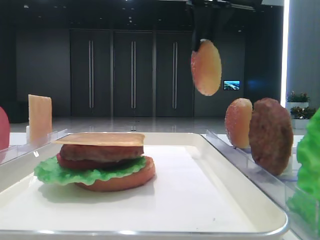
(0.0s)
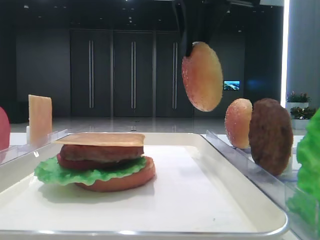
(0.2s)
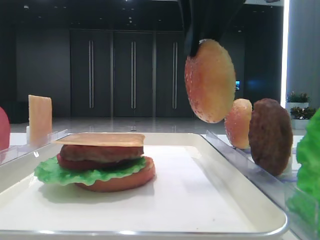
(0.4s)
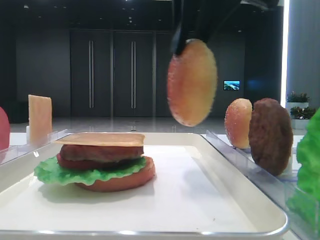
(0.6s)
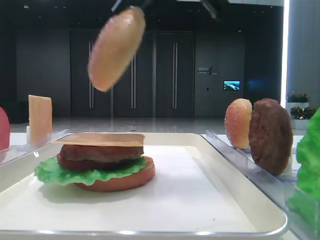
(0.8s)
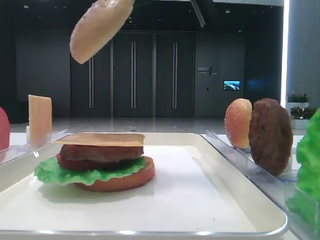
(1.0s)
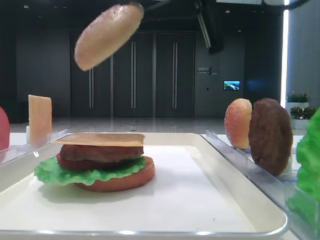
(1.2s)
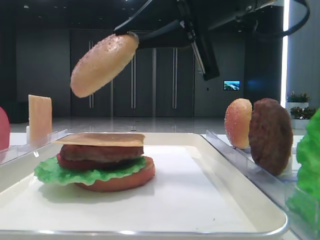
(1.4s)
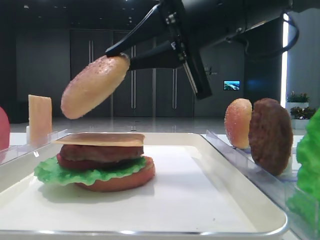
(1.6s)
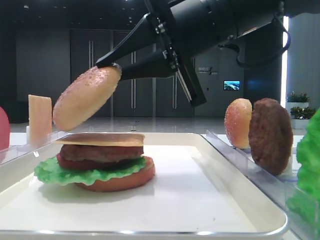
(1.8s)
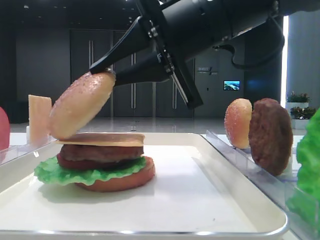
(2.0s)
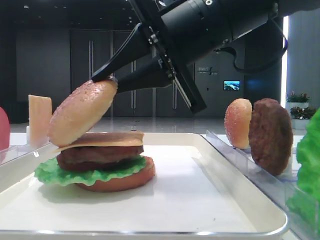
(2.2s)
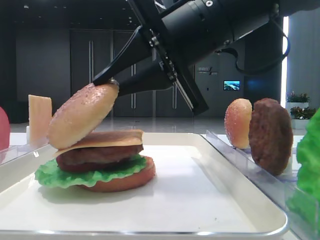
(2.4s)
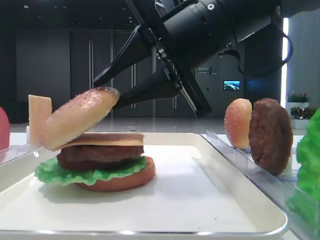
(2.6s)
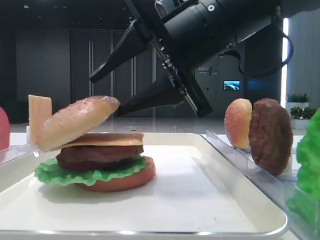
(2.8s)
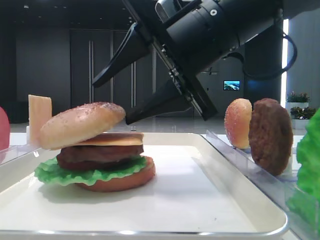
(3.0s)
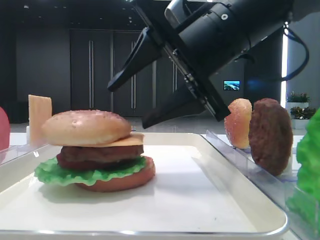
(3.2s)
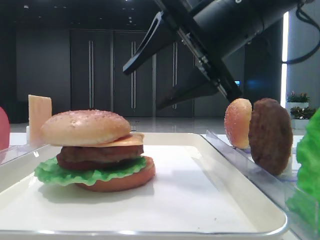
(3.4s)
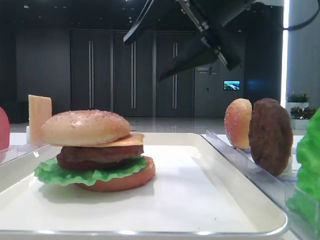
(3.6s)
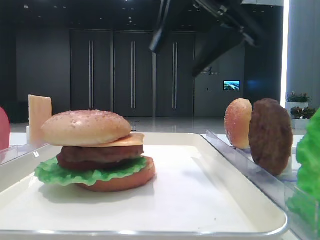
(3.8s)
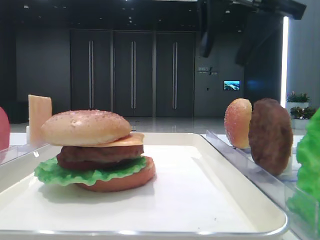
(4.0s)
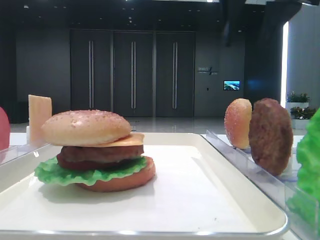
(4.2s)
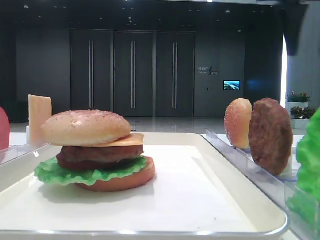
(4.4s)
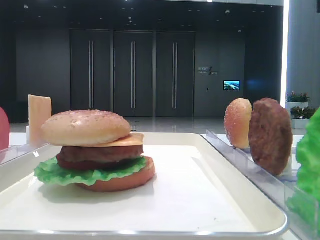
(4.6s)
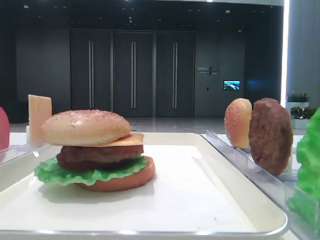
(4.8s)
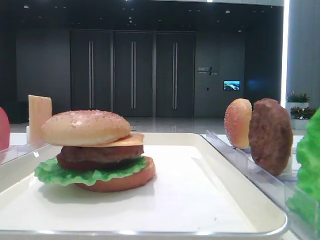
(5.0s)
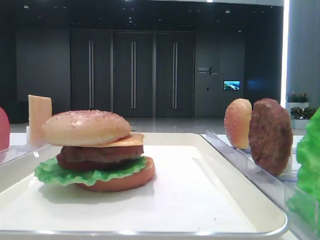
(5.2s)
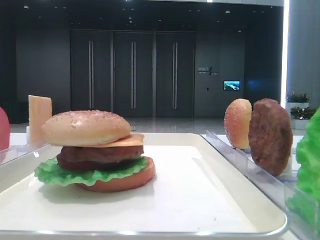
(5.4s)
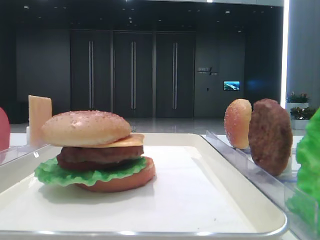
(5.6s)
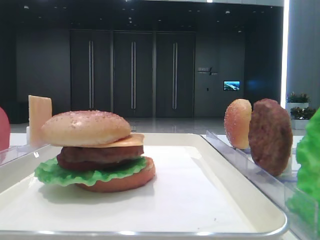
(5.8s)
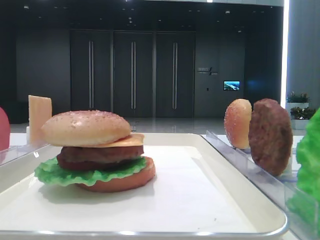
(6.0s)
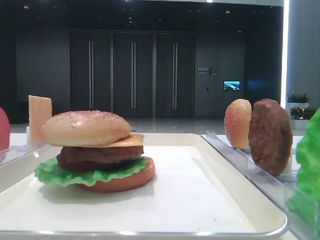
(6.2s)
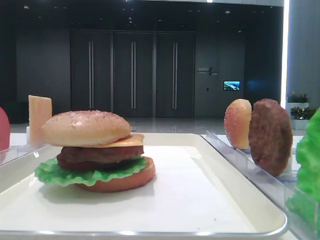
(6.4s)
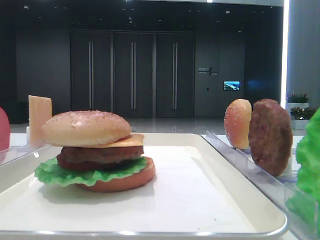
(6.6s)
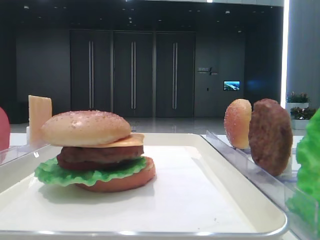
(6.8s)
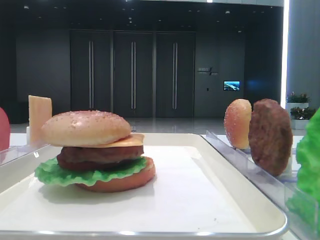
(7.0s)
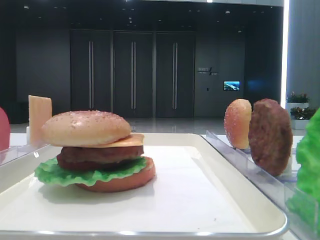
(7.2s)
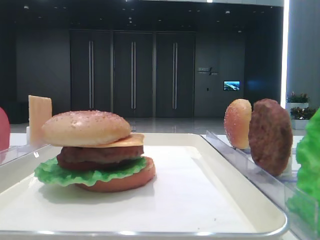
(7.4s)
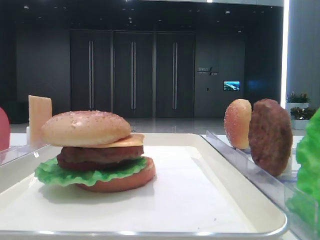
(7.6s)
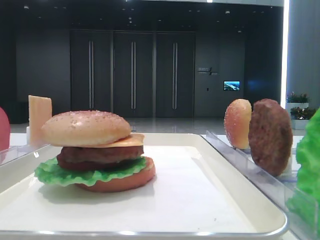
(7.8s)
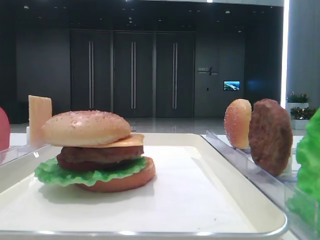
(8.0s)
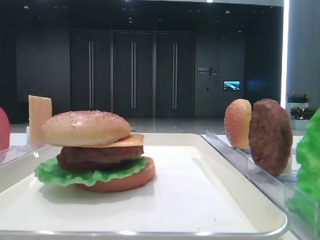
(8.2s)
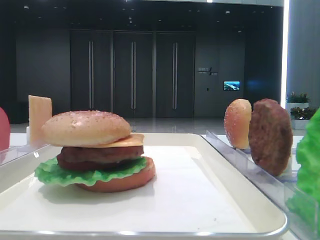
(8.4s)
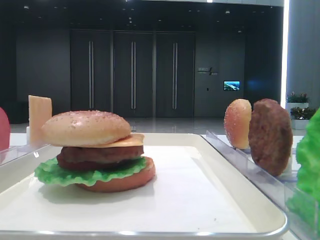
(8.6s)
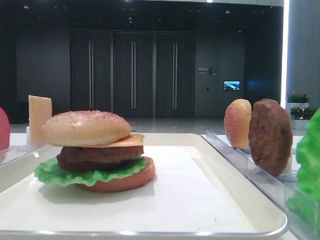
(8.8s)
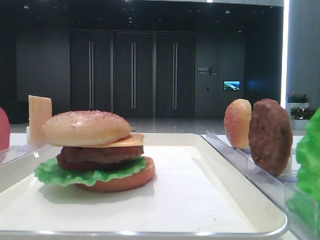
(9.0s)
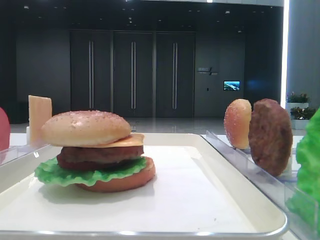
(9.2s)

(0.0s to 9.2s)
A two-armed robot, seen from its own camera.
Step, 0.0s - 3.2s: Place the top bread slice on the cheese with the right hand.
0.0s - 1.6s: The right gripper travels downward and backward by about 15 cm.
1.6s - 3.0s: The right gripper opens up.
3.0s - 4.6s: The right gripper is displaced to the right and upward by roughly 25 cm.
4.6s - 6.2s: The right gripper shifts about 35 cm backward.
6.2s - 9.2s: The two grippers keep their place.

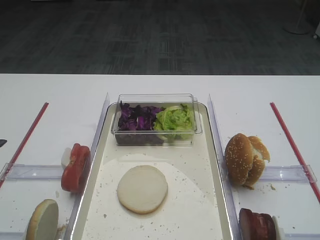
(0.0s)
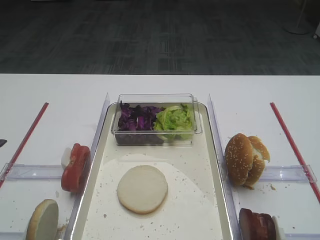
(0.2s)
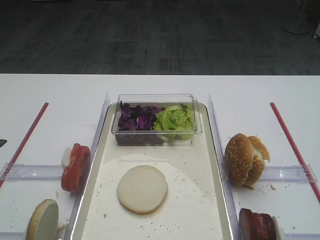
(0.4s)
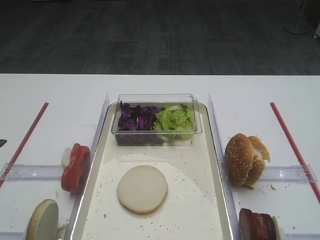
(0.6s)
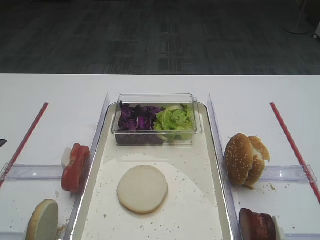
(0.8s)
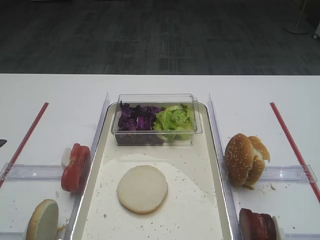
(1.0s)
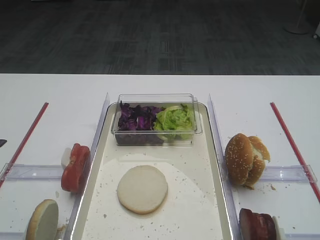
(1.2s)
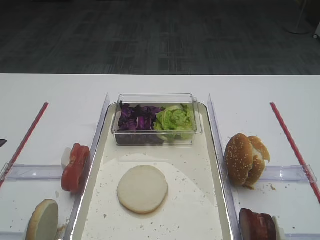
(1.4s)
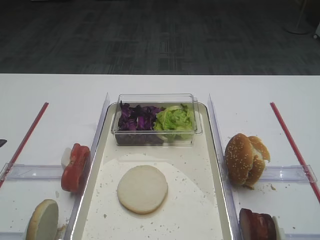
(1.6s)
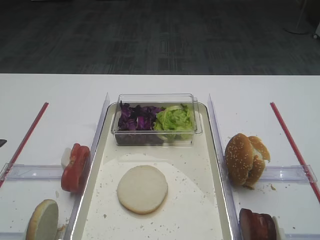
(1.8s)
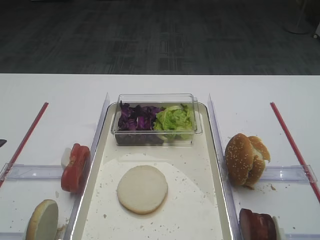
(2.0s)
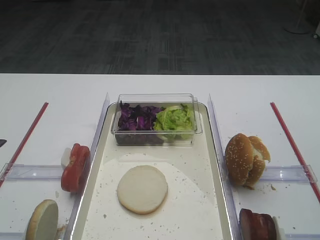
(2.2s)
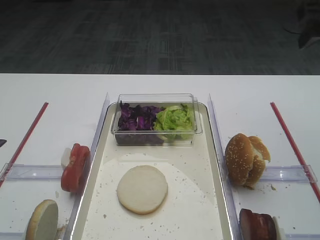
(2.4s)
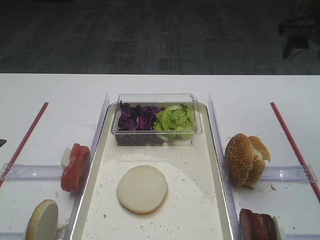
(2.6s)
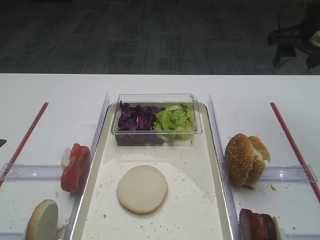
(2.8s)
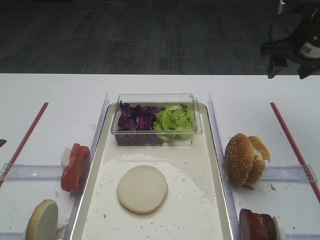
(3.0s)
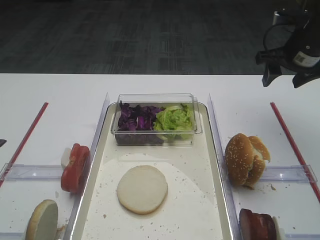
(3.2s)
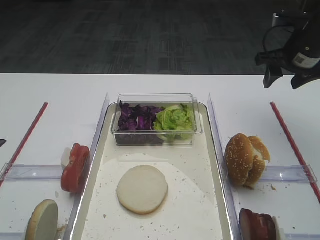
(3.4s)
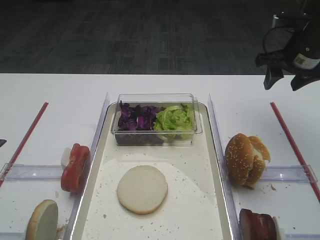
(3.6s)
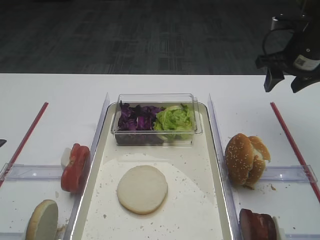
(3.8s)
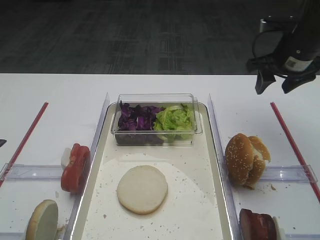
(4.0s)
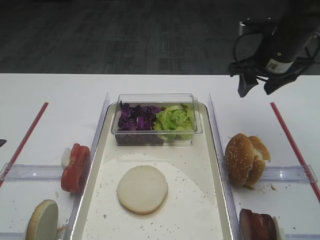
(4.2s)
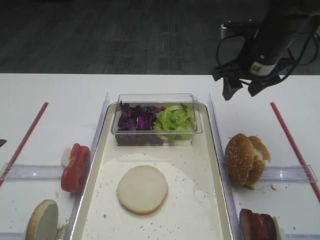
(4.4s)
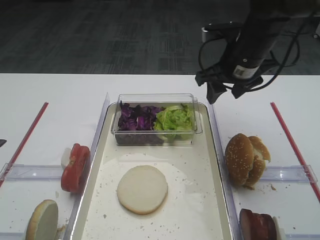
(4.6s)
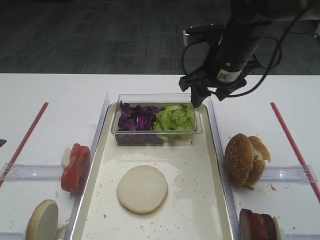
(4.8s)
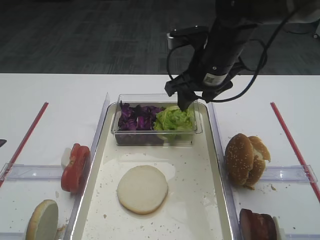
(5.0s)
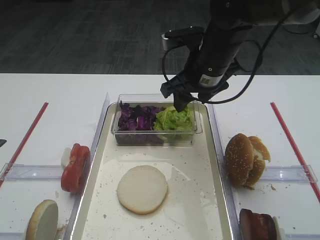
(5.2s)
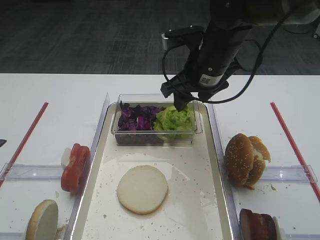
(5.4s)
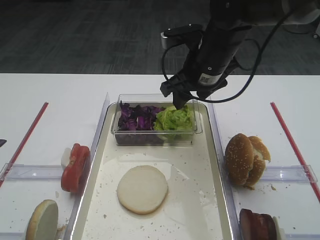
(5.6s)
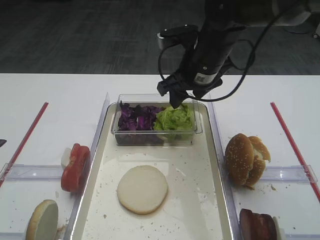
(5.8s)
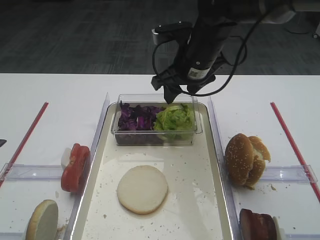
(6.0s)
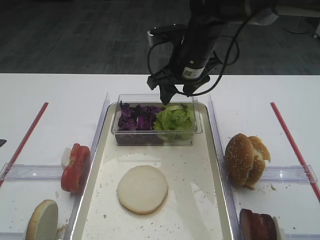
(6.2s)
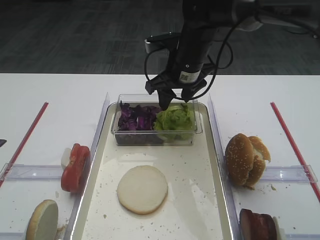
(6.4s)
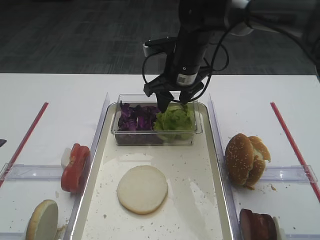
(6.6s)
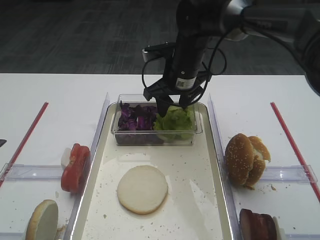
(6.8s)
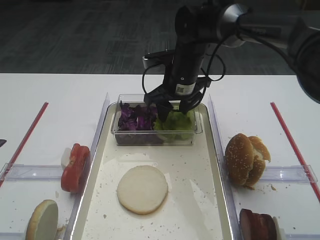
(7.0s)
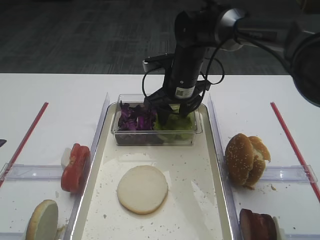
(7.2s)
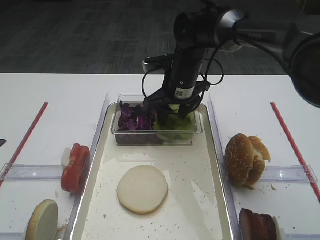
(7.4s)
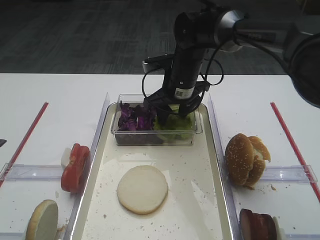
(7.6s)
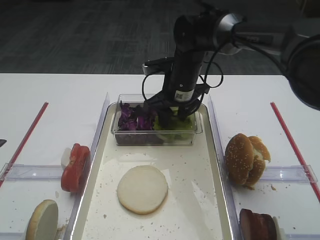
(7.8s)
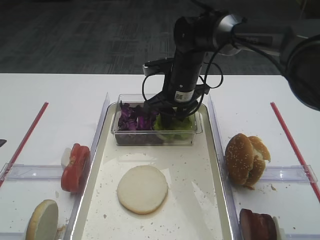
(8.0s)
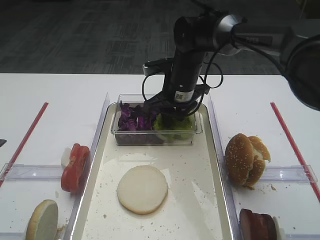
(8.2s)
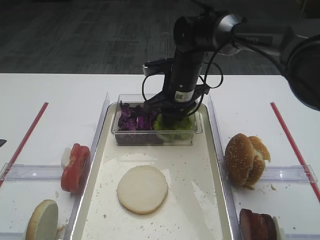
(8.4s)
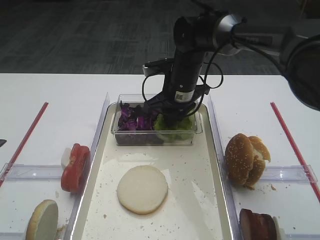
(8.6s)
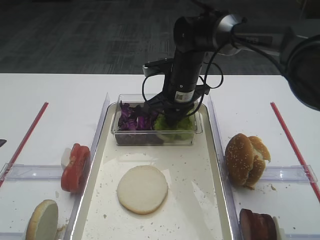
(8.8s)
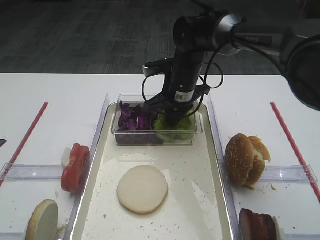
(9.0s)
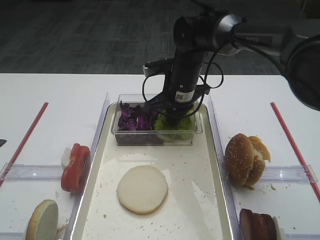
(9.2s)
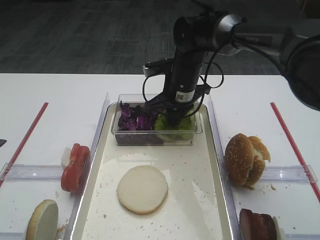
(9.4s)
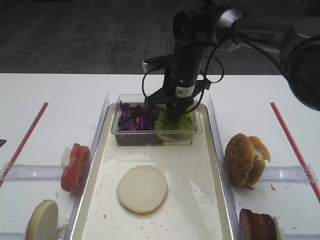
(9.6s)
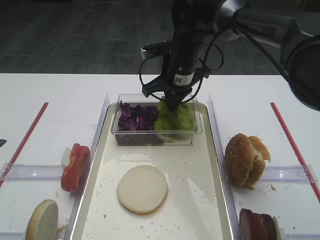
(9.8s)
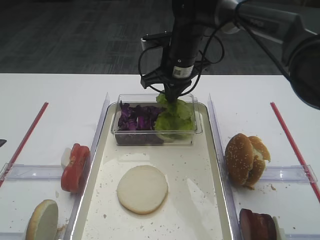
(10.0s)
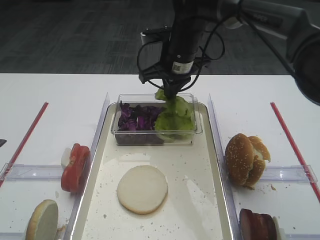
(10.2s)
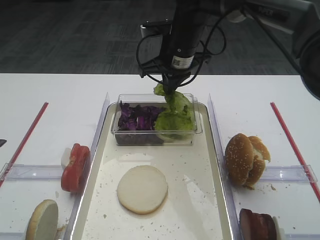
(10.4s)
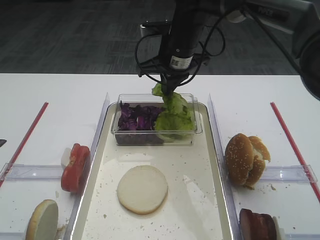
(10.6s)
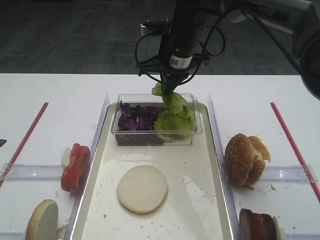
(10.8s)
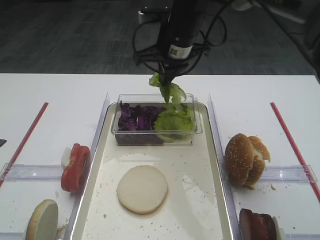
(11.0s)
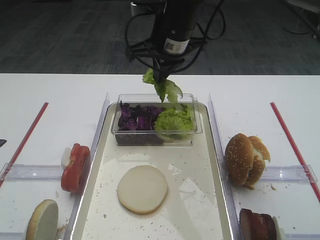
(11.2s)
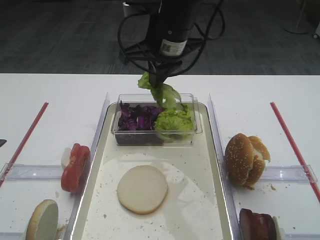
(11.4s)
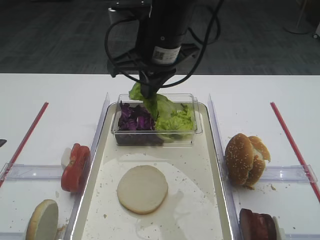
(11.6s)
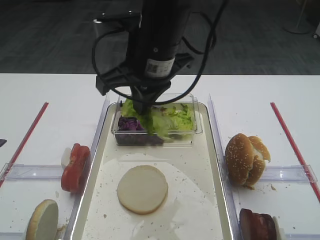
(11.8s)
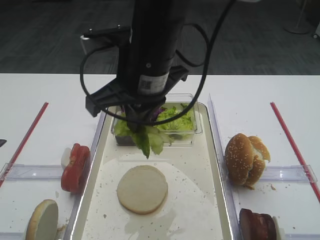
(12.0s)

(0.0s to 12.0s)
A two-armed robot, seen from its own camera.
Step, 0.0s - 10.2s: Pick up the lettuce leaf with the right gripper.
1.6s - 3.0s: The right gripper travels forward by roughly 35 cm.
3.0s - 4.4s: The right gripper heads to the left, covering about 10 cm.
4.4s - 6.0s: The right gripper goes approximately 10 cm to the left.
6.0s - 7.6s: The right gripper goes some 5 cm downward.
7.6s - 9.0s: The right gripper closes its fingers.
9.0s - 10.4s: The right gripper travels upward by about 5 cm.
10.4s - 12.0s: The right gripper shifts some 15 cm backward.

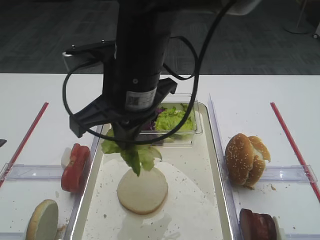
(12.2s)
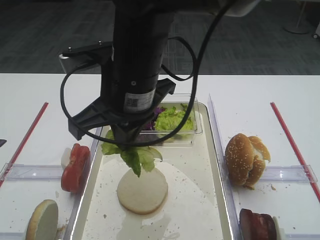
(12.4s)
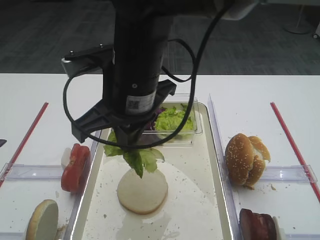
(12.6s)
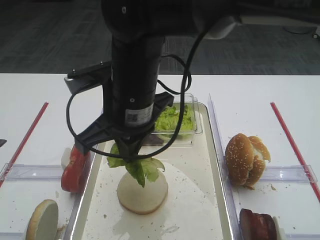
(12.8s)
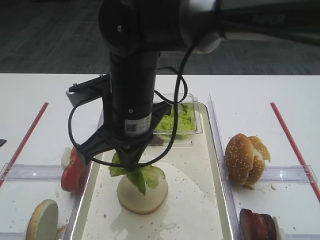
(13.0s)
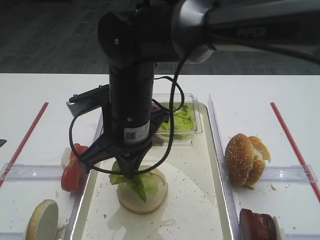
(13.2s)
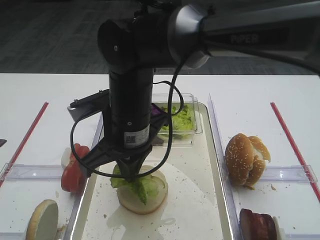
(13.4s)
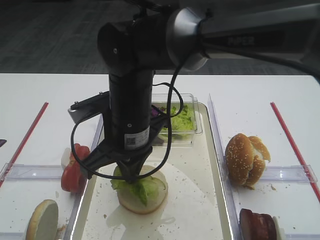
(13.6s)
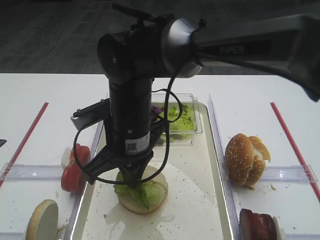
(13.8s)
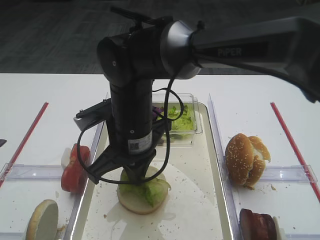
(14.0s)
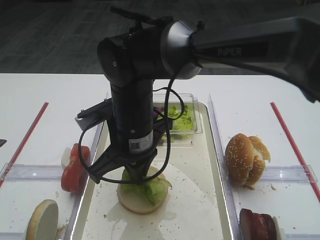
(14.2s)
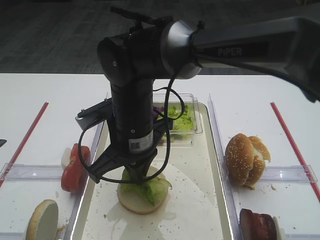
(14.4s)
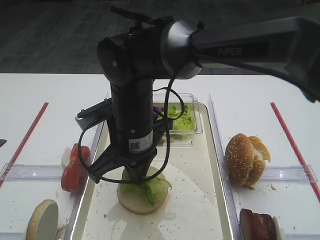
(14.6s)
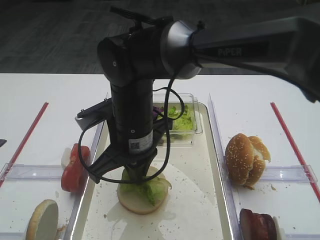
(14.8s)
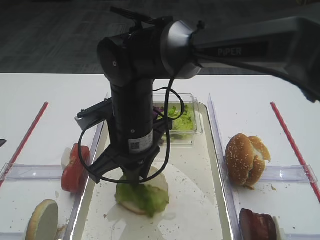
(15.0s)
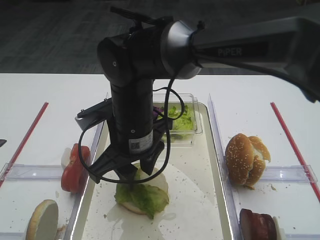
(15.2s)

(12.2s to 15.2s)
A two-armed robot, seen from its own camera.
12.2s - 13.8s: The right gripper is displaced downward by roughly 10 cm.
13.8s - 15.2s: The right gripper opens its fingers.
